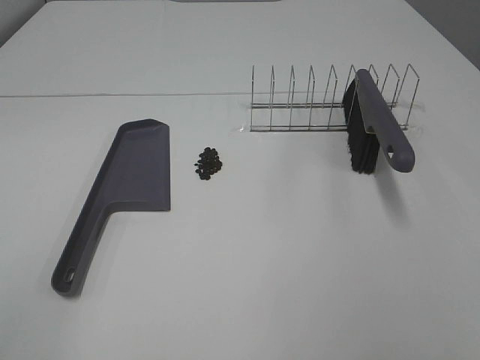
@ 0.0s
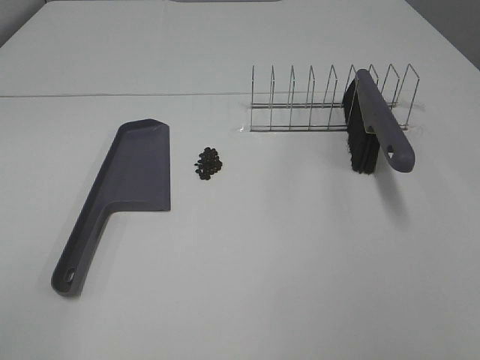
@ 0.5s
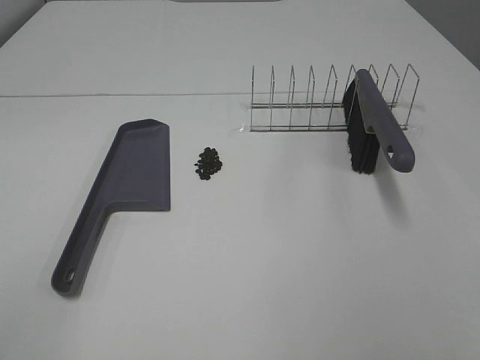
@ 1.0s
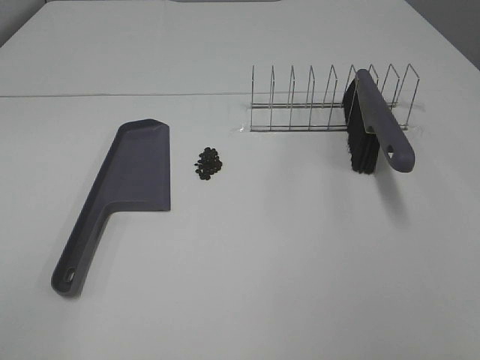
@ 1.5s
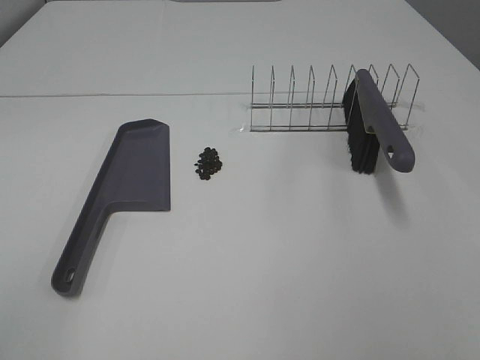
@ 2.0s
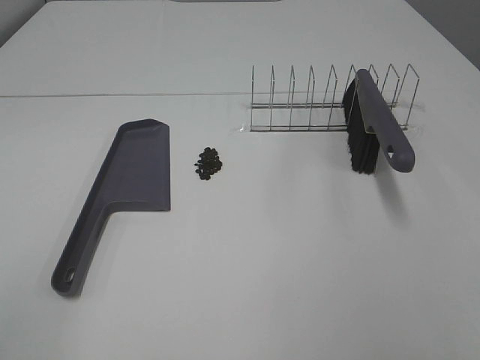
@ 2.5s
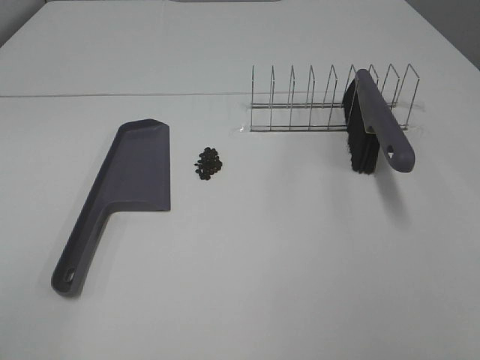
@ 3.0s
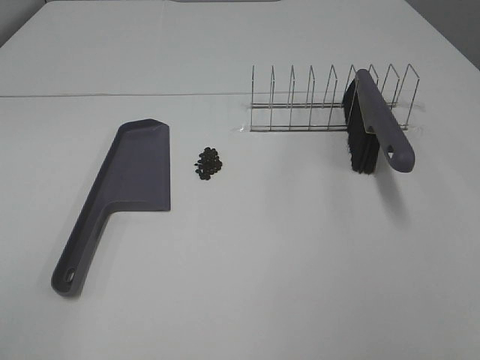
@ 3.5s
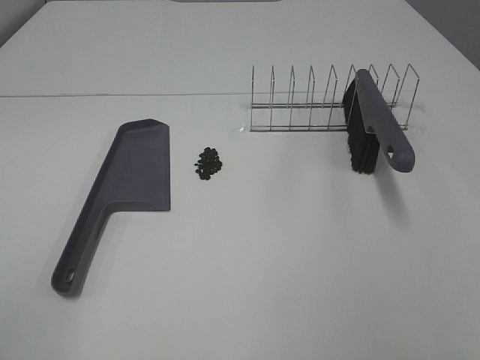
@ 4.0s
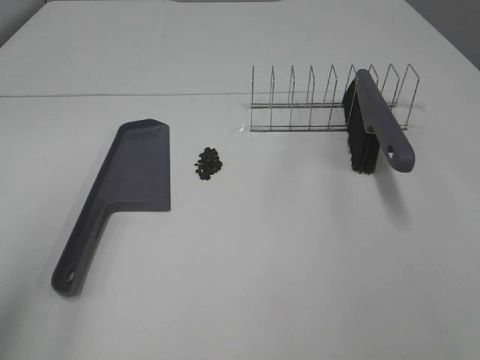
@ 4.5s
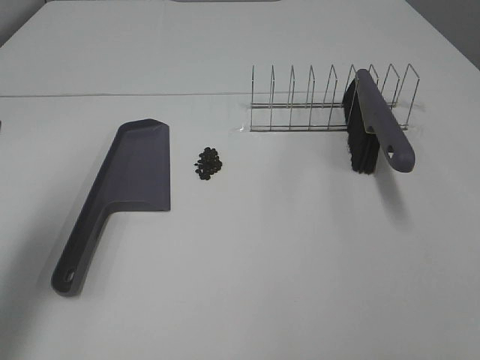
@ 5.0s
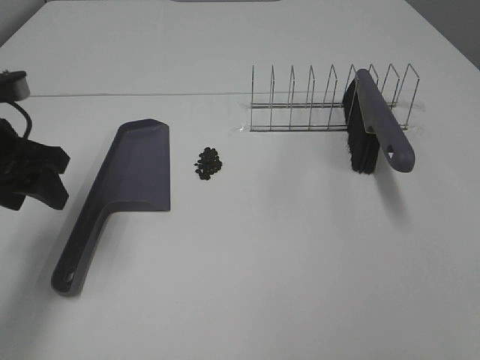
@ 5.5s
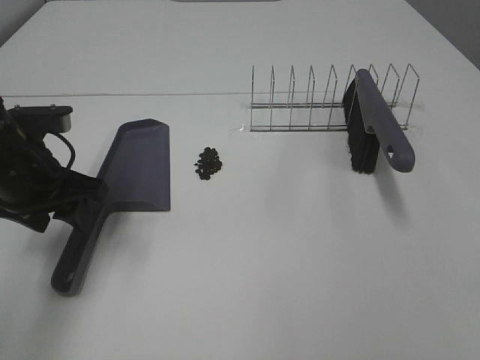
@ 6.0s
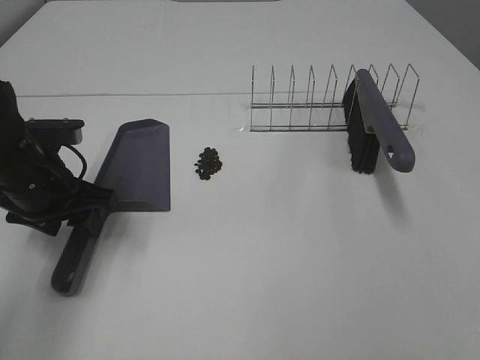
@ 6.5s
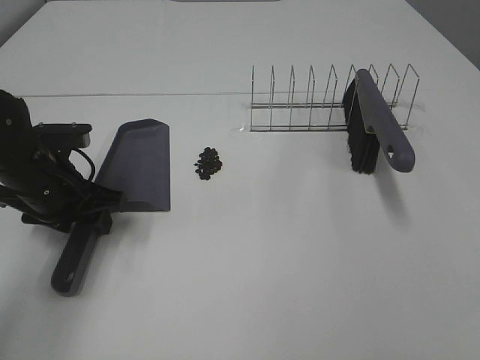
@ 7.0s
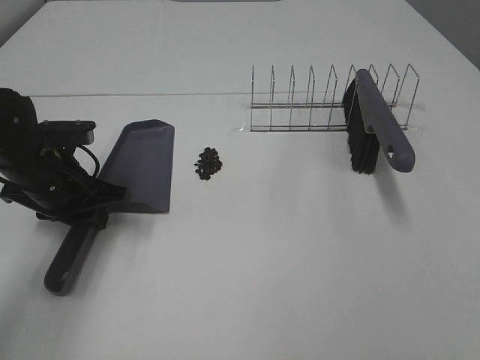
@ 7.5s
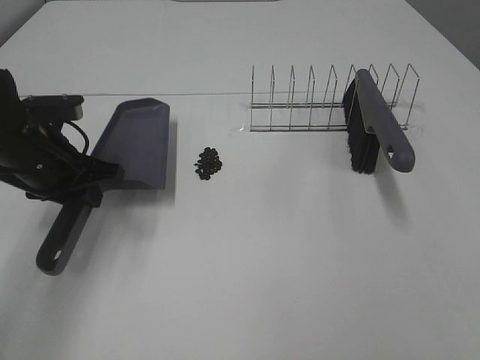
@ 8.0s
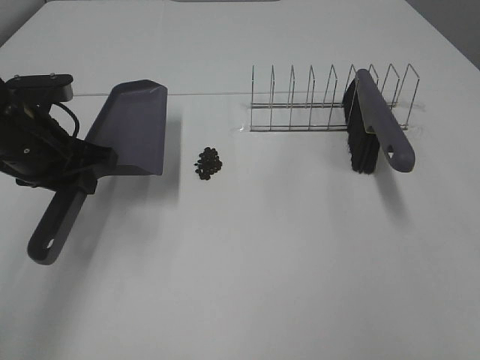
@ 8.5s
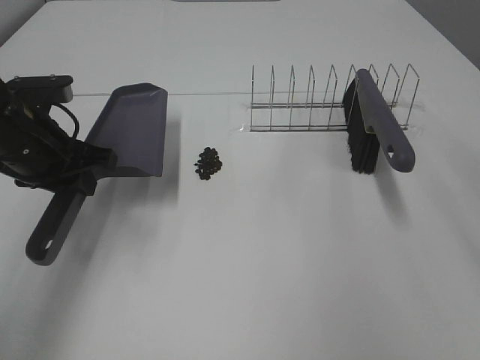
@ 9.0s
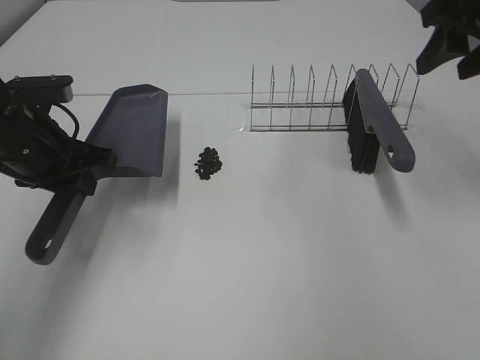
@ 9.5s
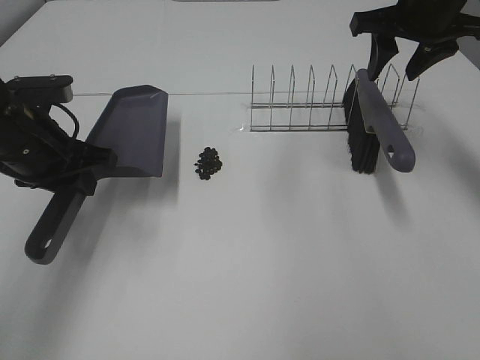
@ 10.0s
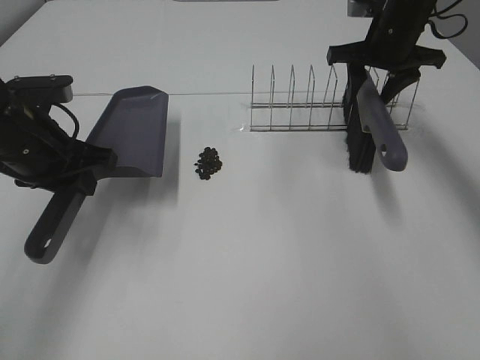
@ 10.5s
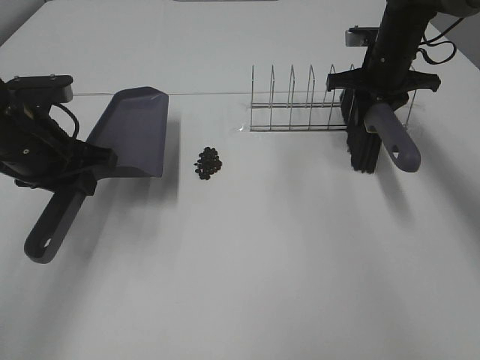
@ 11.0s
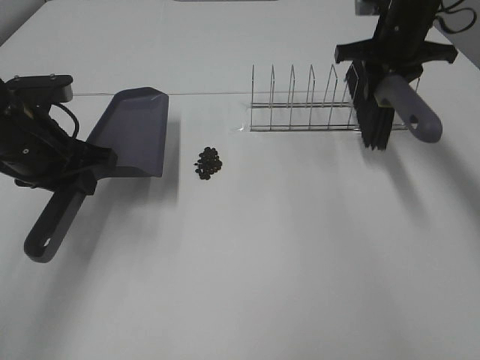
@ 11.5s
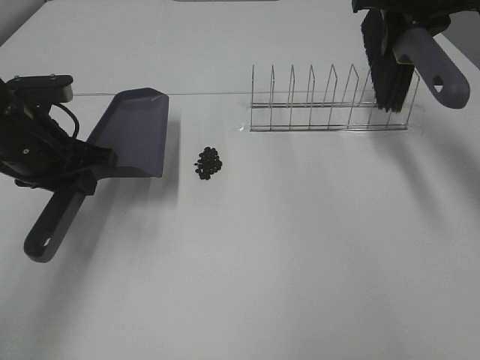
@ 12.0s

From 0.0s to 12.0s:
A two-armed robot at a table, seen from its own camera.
Task of the whole recording: Sweep Coffee Bean.
Step, from 0.0s to 7.0s: Left hand: grab the dustpan.
Step, from 8.5s to 11.0s: Right hand:grab the broom.
From 0.0s to 4.0s: Both grippers stay about where they are.
From 4.0s to 6.0s: The left gripper moves forward and downward, approximately 35 cm.
From 6.0s to 8.0s: The left gripper closes its fingers.
From 8.0s to 10.0s: The right gripper is displaced forward by about 40 cm, and closes its fingers.
From 10.0s to 12.0s: The right gripper goes downward and returns, about 10 cm each way, and closes its fingers.

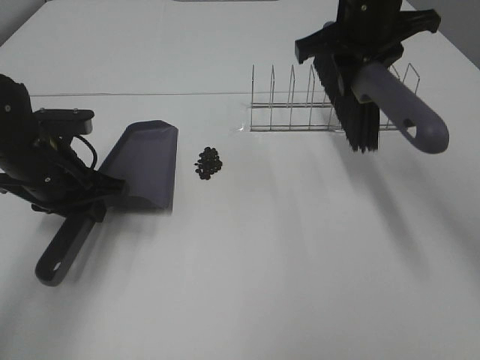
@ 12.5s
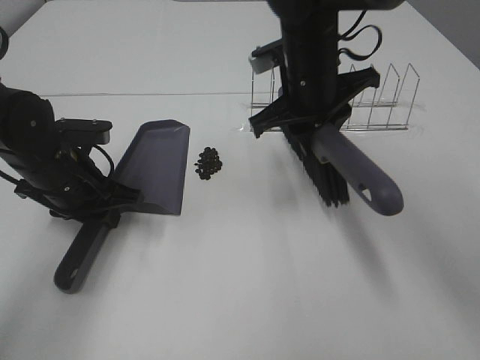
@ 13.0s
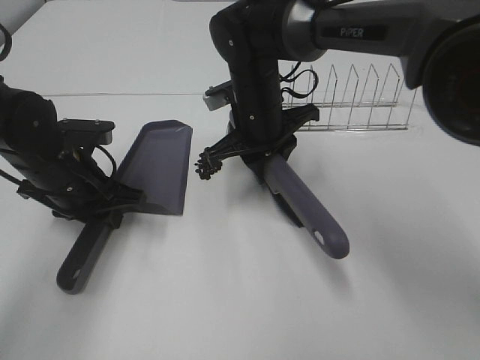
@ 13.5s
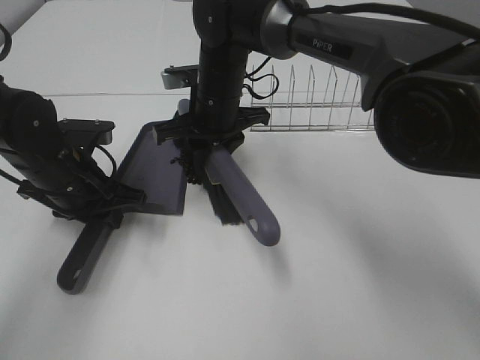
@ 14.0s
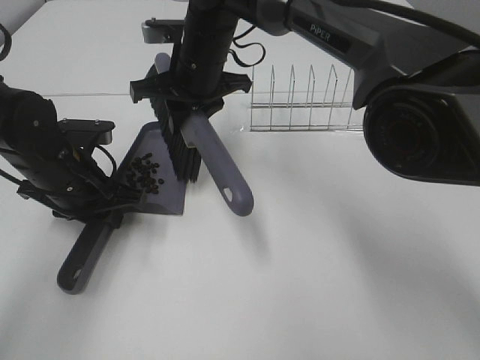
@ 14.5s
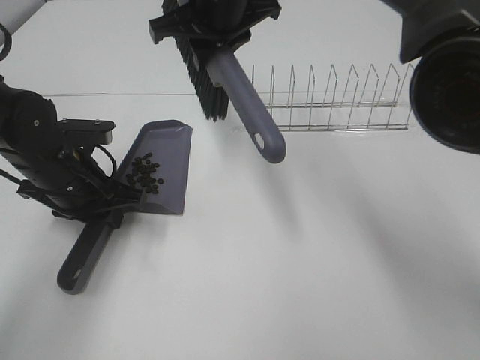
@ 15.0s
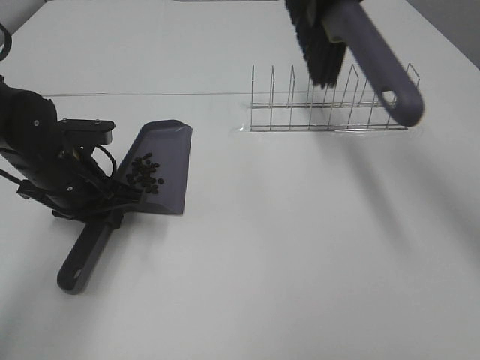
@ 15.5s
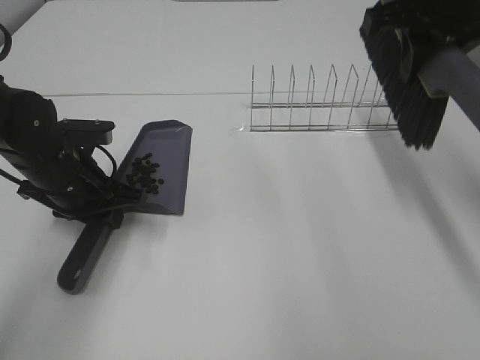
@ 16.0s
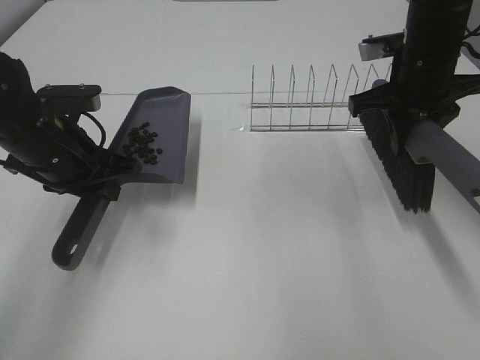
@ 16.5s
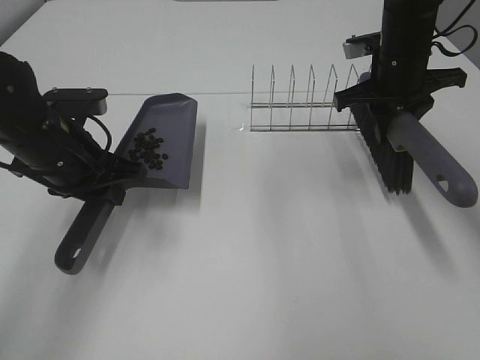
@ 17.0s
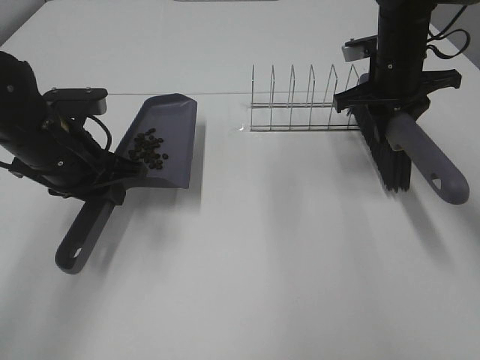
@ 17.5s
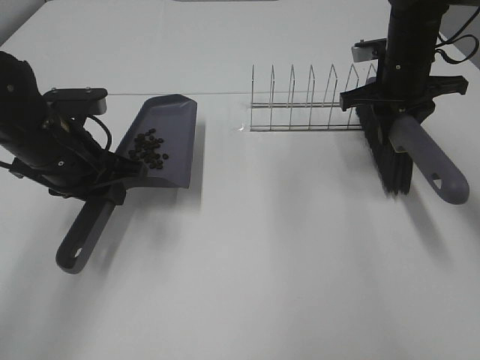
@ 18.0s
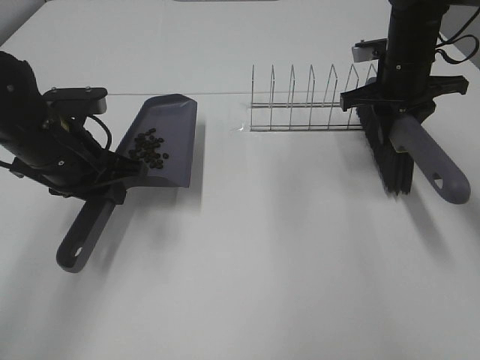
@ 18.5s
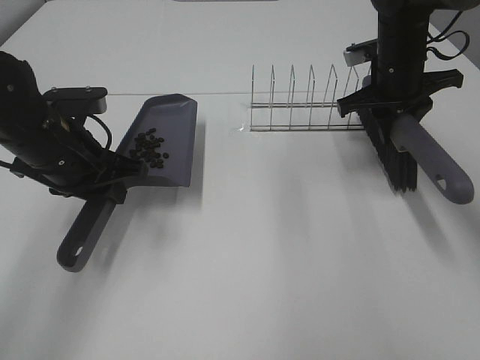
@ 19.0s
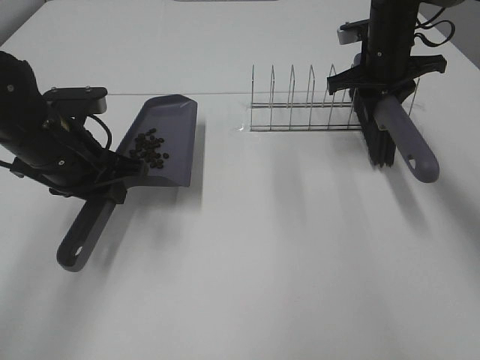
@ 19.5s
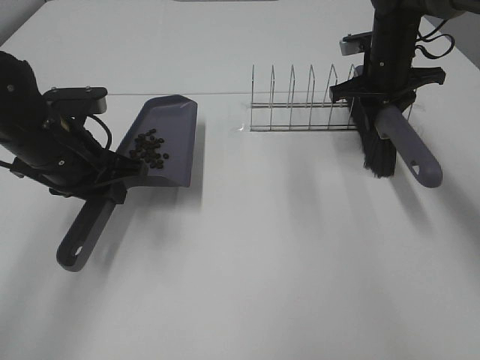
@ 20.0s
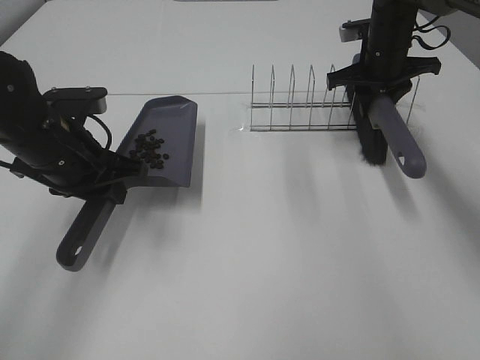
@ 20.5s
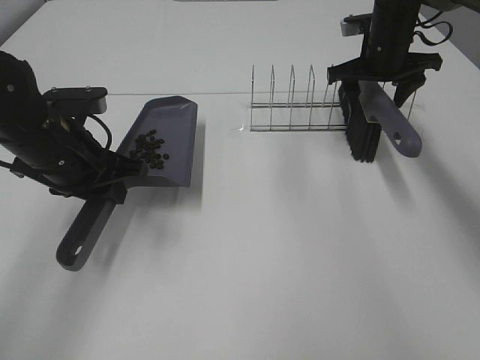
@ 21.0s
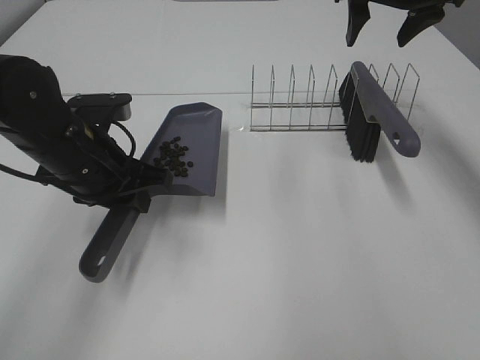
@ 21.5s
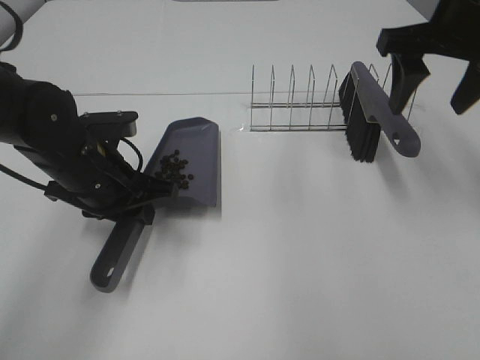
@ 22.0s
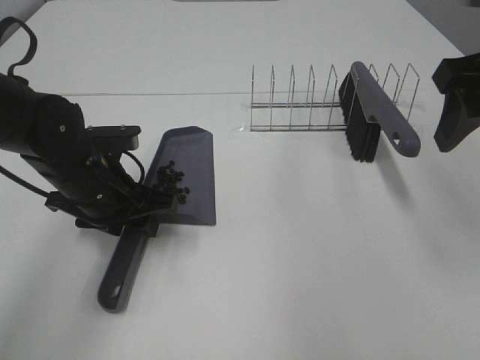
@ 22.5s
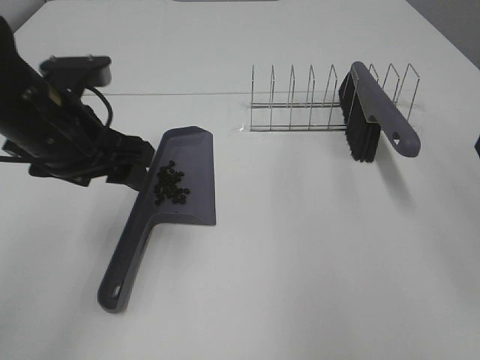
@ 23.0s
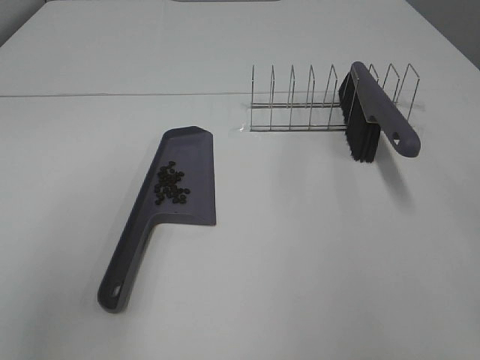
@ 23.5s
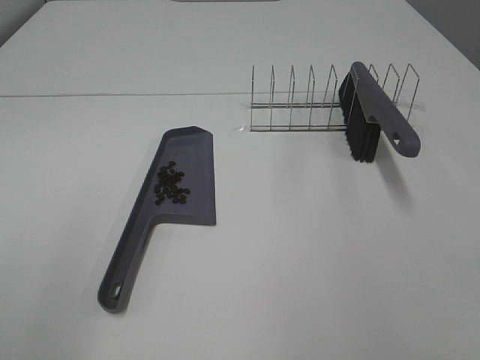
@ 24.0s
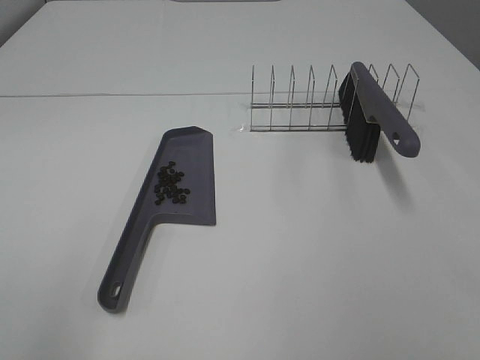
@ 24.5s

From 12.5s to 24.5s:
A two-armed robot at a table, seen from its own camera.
Task of the whole recording: Sweep Coffee Bean.
Step, from 12.5s to 14.5s: Right hand:sweep the coffee beans into the dustpan.
Step, from 15.0s to 21.0s: Right hand:place the broom on the rack.
Step, from 21.5s to 22.5s: Left hand:place the dustpan on the table.
From 12.5s to 14.5s: The right gripper moves to the left, approximately 20 cm.
From 14.5s to 16.5s: The left gripper ends up about 5 cm from where it was. The right gripper heads to the right, covering roughly 25 cm.
From 16.5s to 18.5s: The right gripper moves forward, roughly 5 cm.
From 18.5s to 20.5s: The right gripper is displaced forward by about 5 cm.
From 20.5s to 22.5s: The left gripper moves about 5 cm, and opens. The right gripper heads backward and upward, covering roughly 30 cm, and opens its fingers.
From 22.5s to 24.5s: The left gripper travels backward, upward and to the left by some 35 cm, while the right gripper goes about 20 cm backward.

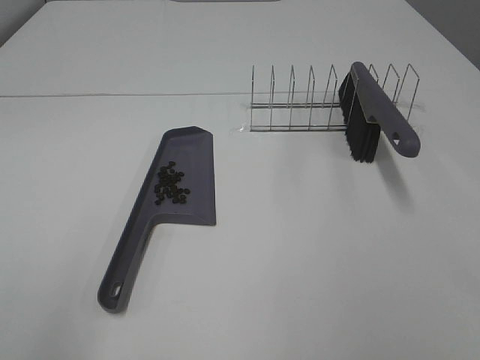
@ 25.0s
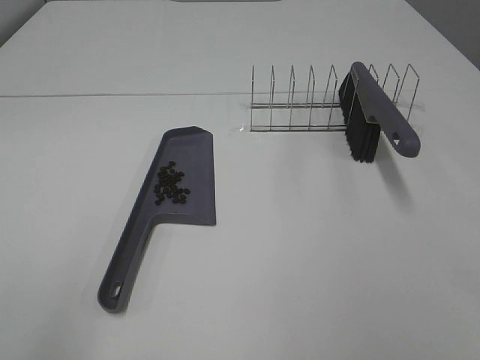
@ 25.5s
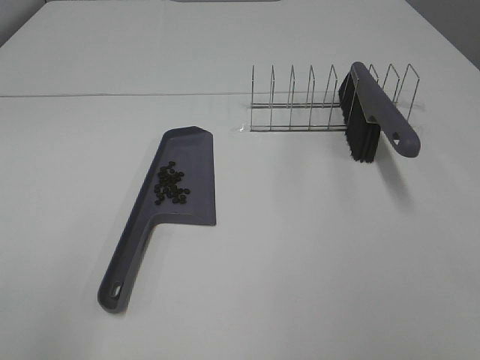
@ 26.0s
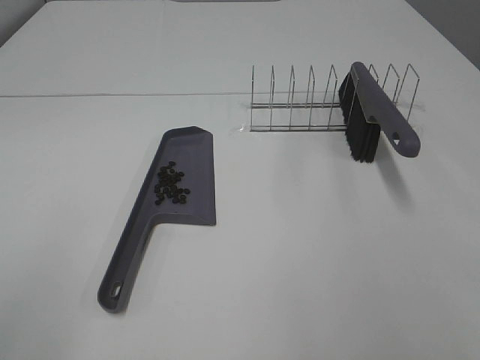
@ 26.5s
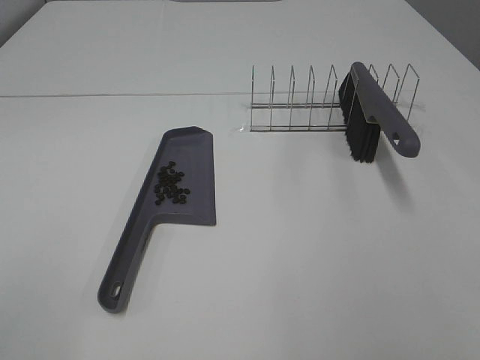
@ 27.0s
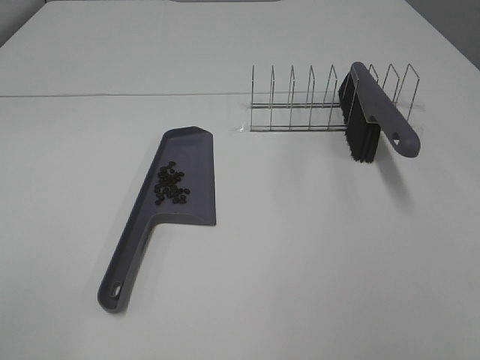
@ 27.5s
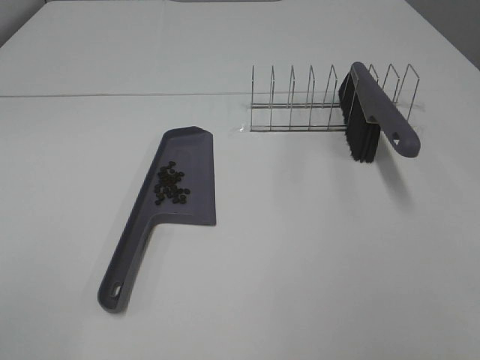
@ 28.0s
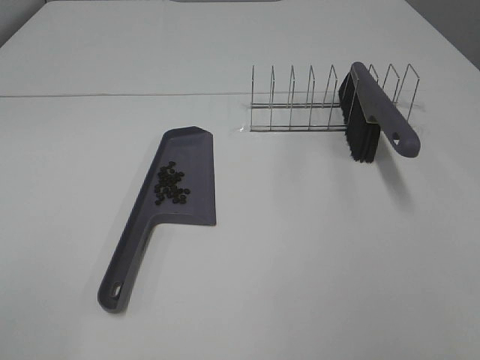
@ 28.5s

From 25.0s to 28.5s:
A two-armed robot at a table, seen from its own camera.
Task of the whole recording: Sweep Coffee Bean.
From 27.0s to 28.5s: The two grippers keep their place.
